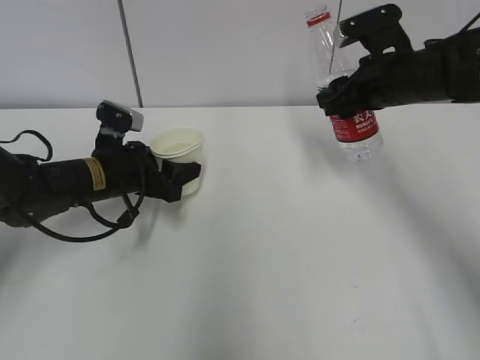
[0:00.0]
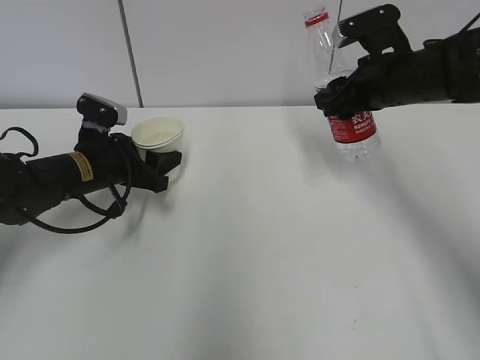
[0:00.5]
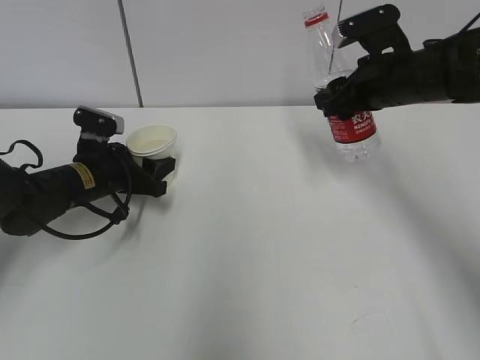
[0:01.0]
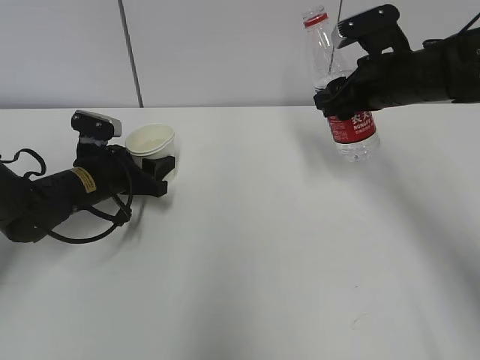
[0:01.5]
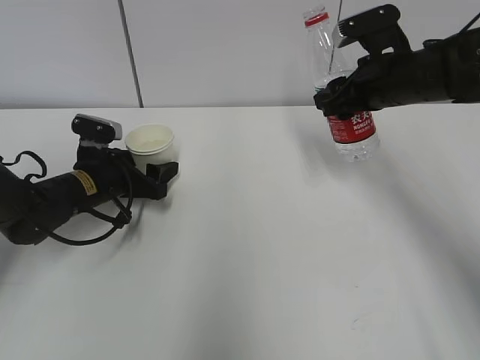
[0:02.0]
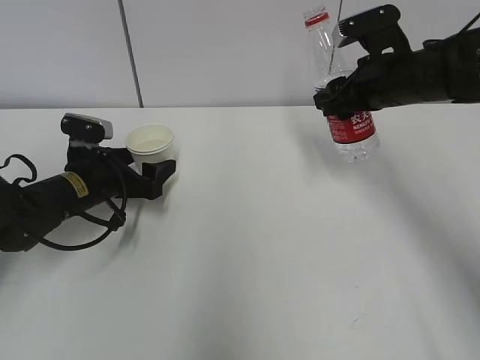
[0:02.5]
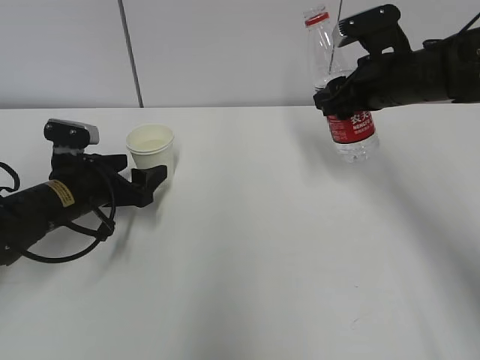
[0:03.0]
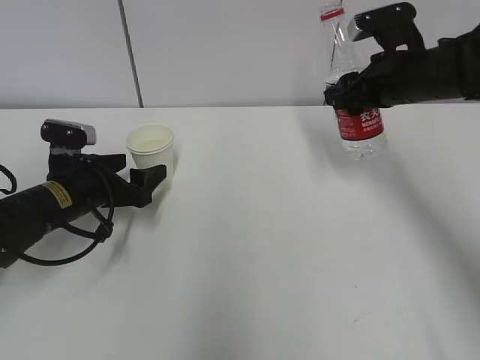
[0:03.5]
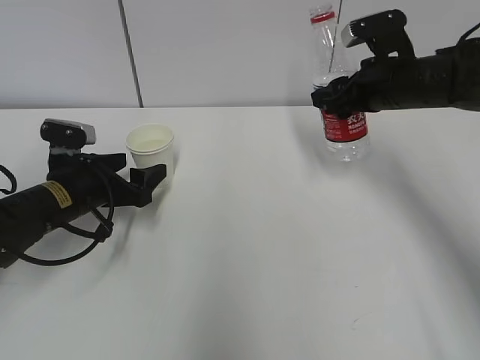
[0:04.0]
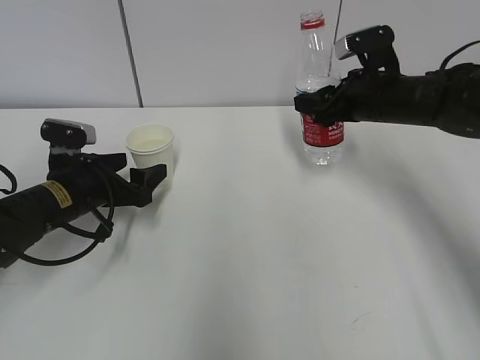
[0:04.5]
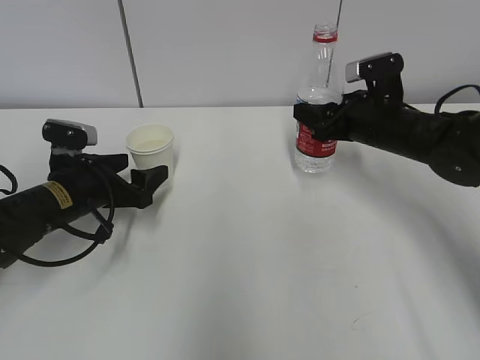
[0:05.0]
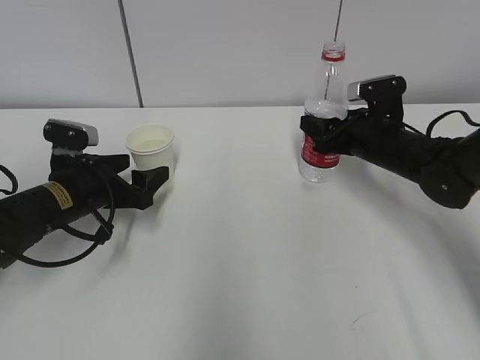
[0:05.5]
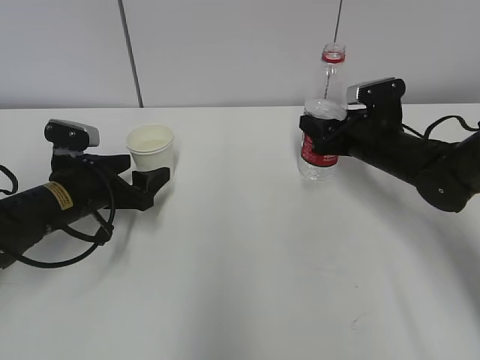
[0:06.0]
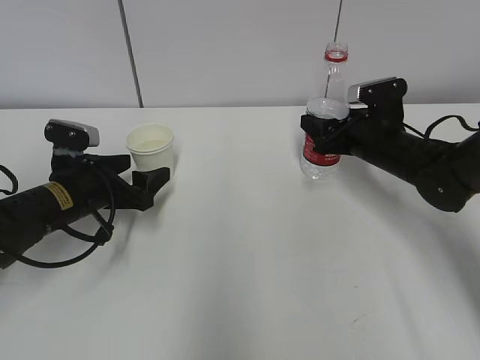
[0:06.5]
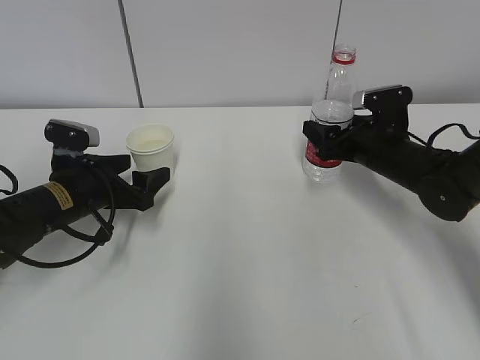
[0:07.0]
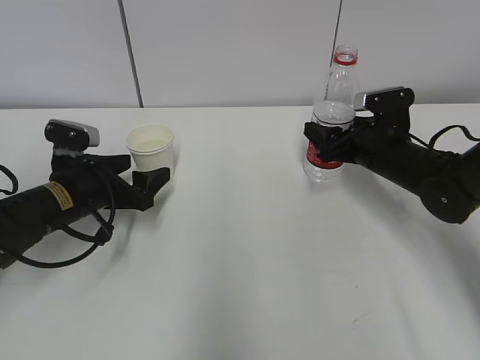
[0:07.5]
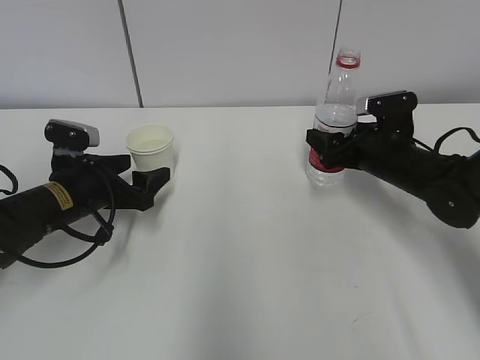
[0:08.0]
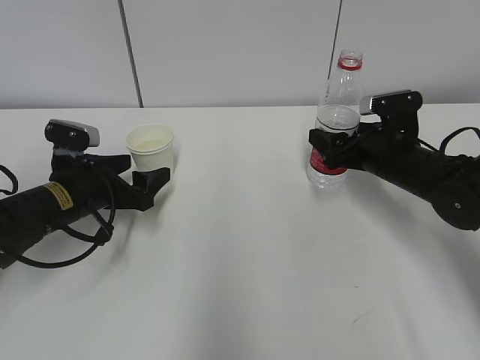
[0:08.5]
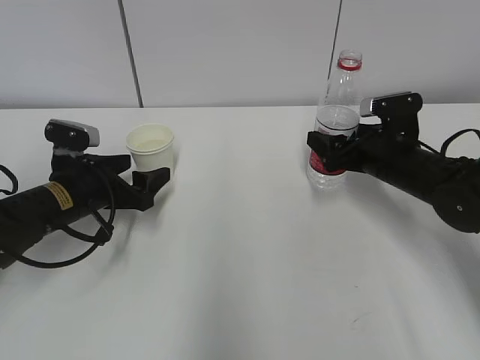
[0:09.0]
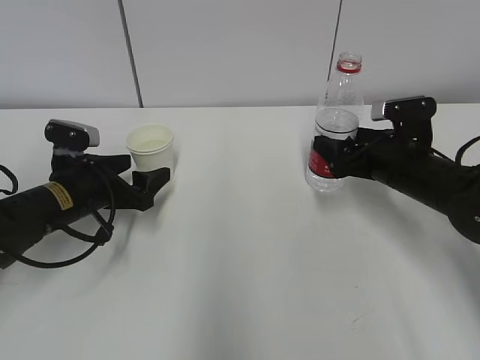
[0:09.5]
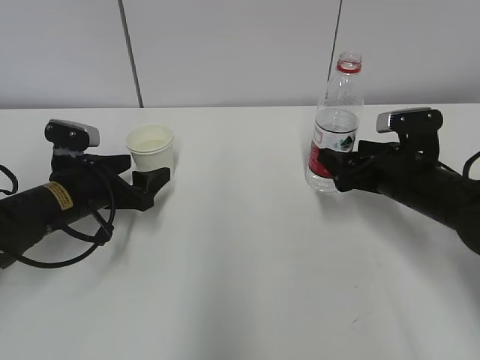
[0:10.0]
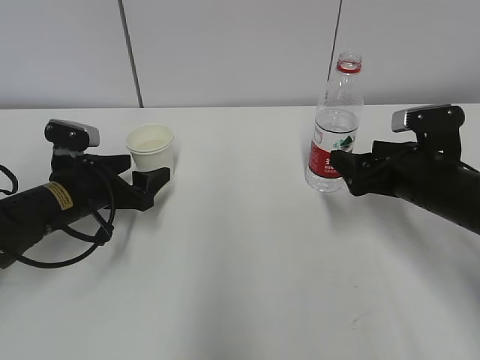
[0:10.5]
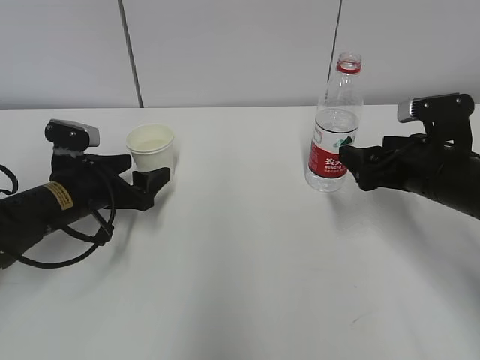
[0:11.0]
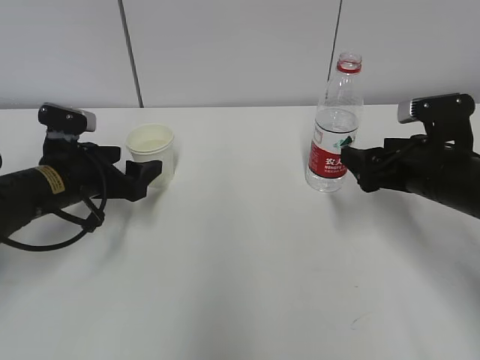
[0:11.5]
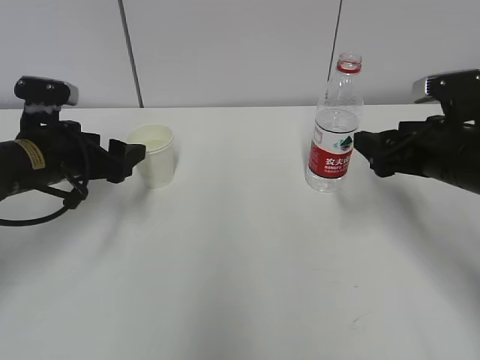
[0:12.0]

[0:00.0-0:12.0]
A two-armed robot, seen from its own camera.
0:00.0 to 0:02.0: The left gripper opens its fingers.
0:02.0 to 0:04.0: The left gripper changes place by roughly 5 cm.
0:04.0 to 0:06.0: The right gripper is displaced downward by some 10 cm.
0:06.0 to 0:08.0: The right gripper opens its fingers.
0:08.0 to 0:10.0: The right gripper shifts about 5 cm backward.
0:10.0 to 0:12.0: Both grippers travel together upward, approximately 5 cm.

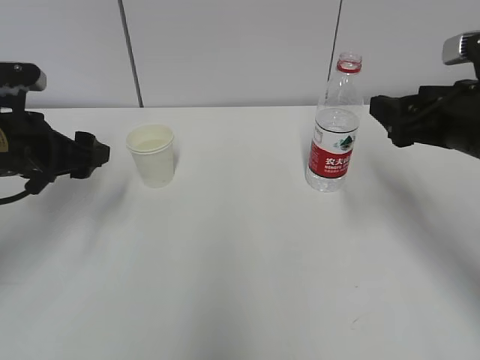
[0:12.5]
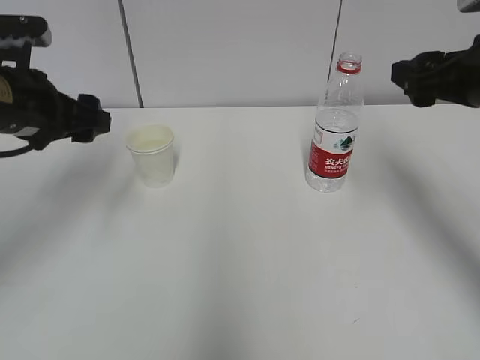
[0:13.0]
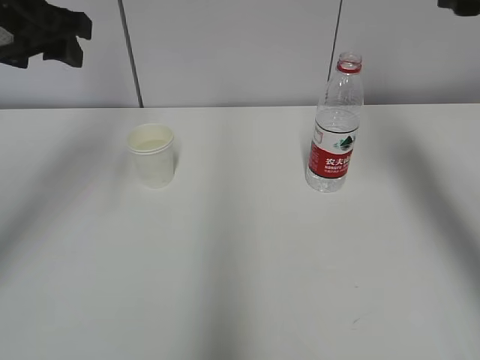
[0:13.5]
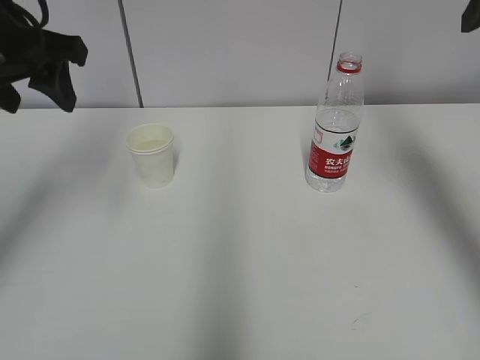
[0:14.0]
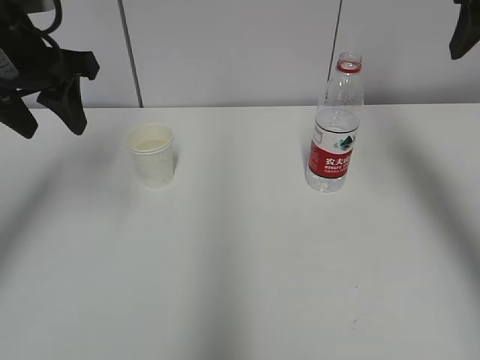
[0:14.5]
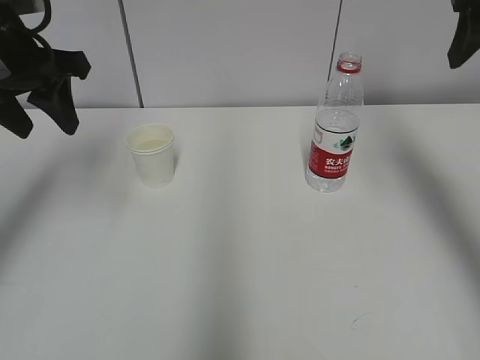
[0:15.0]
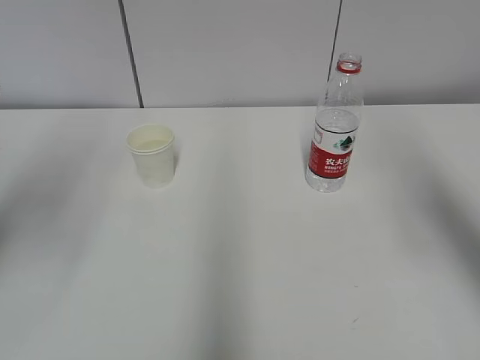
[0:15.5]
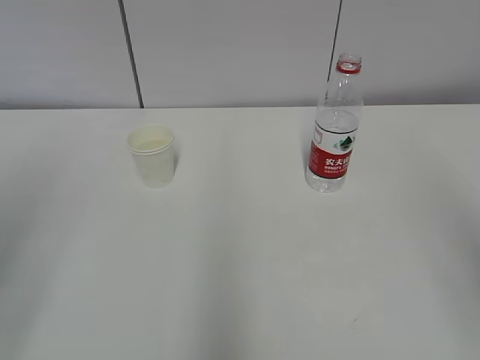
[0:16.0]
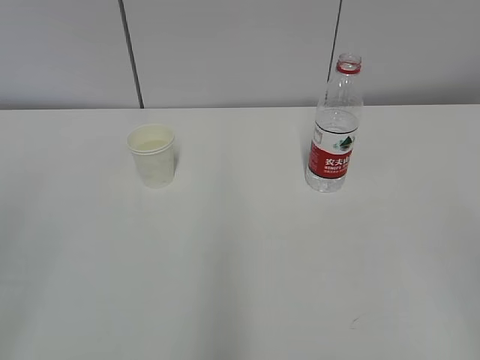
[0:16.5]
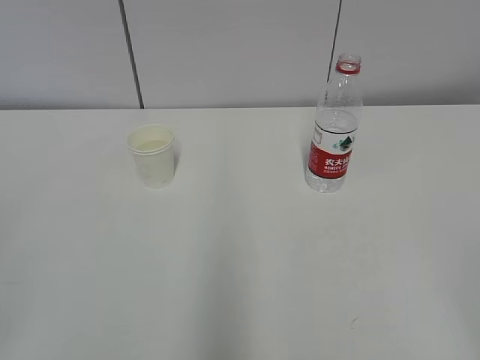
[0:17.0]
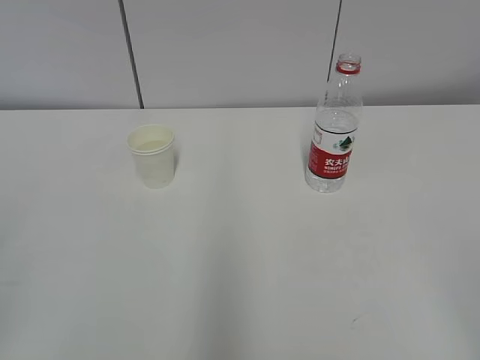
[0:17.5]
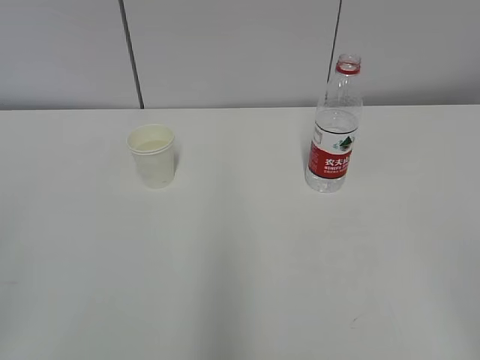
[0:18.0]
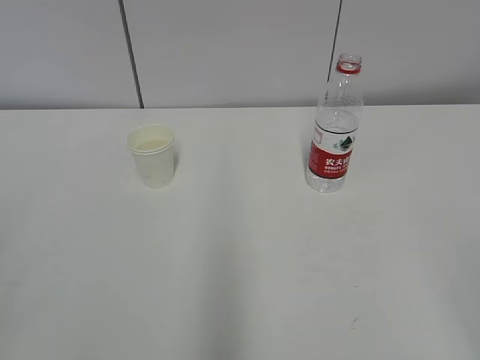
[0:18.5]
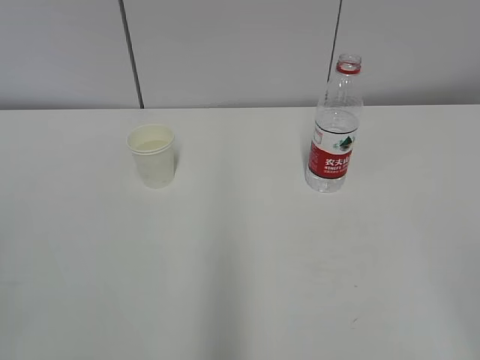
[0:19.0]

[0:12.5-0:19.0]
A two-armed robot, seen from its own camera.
0:12.5 to 0:14.5: Both grippers move upward, about 15 cm. The left gripper closes its fingers.
0:14.5 to 0:17.0: Both grippers move backward, about 35 cm.
